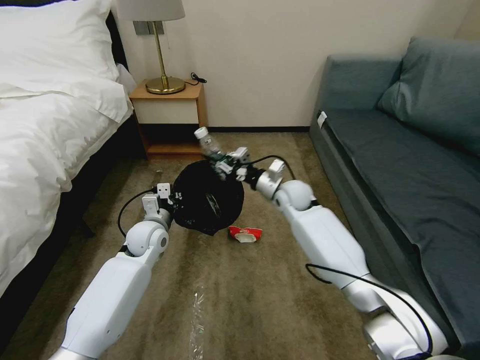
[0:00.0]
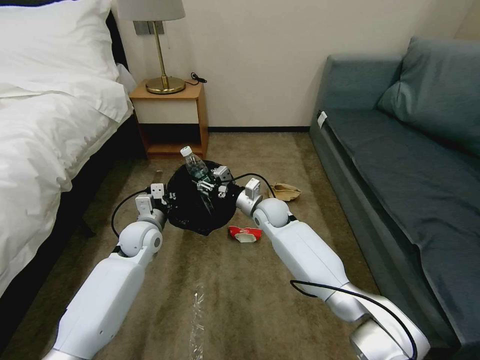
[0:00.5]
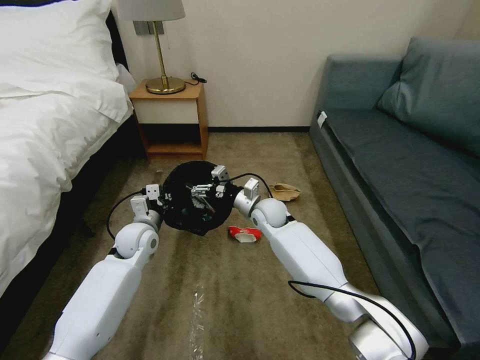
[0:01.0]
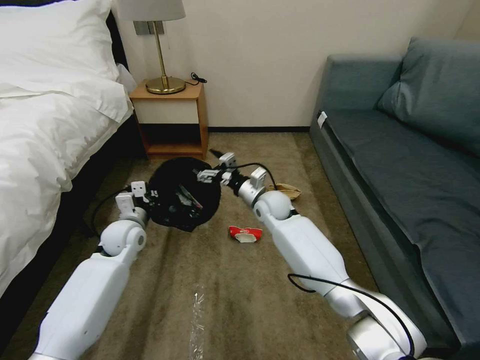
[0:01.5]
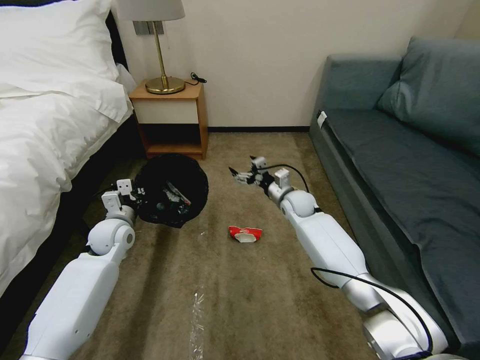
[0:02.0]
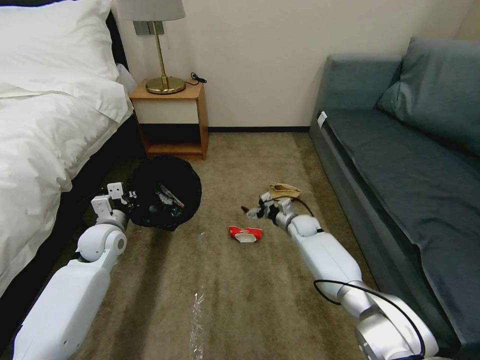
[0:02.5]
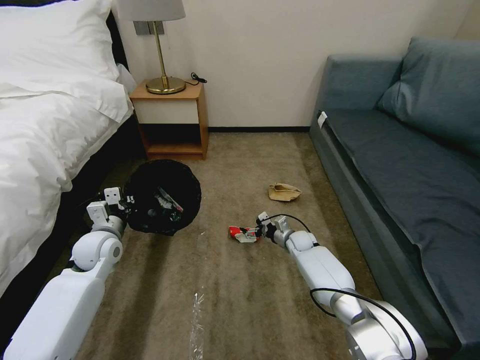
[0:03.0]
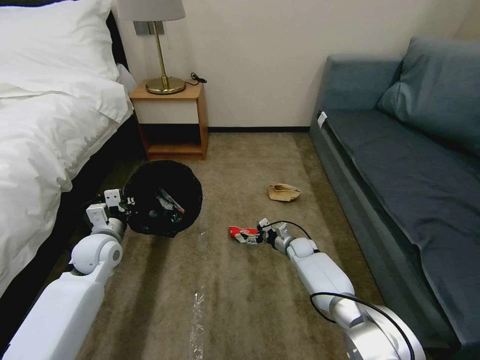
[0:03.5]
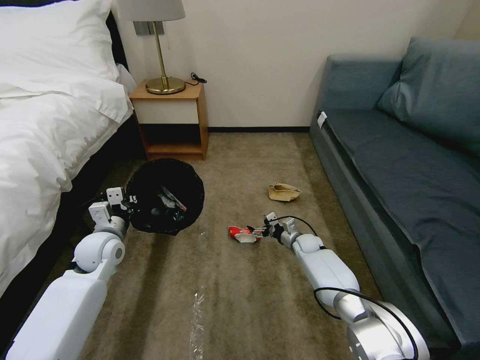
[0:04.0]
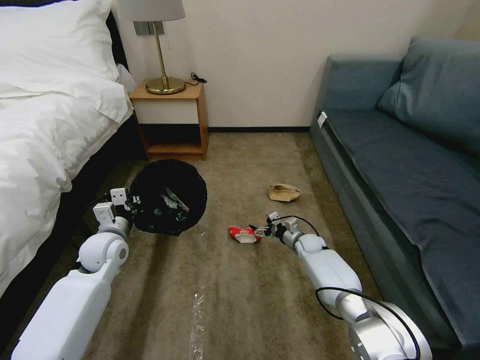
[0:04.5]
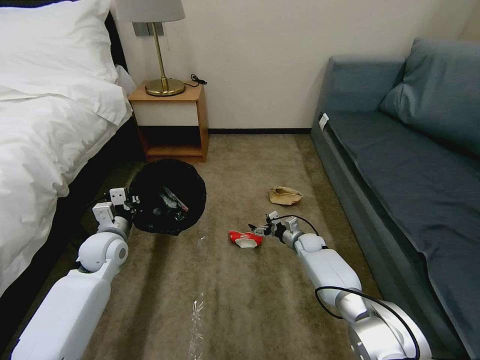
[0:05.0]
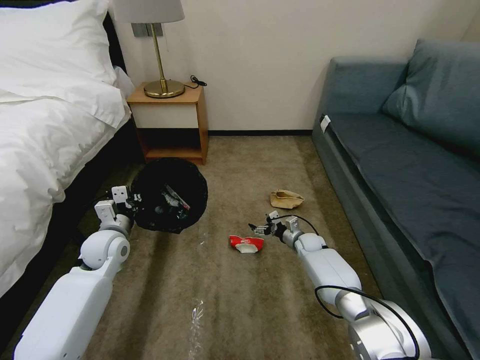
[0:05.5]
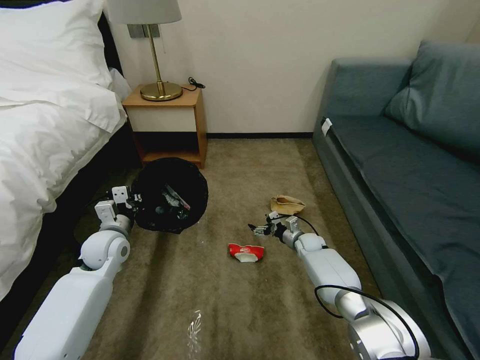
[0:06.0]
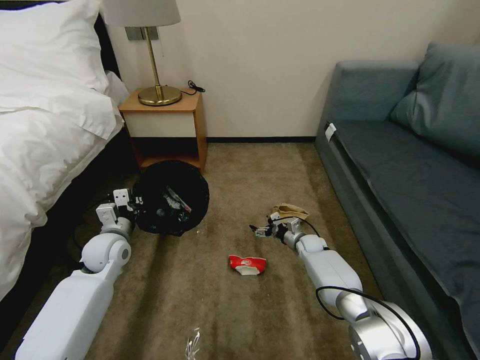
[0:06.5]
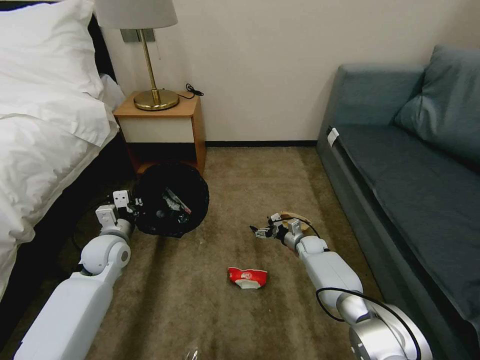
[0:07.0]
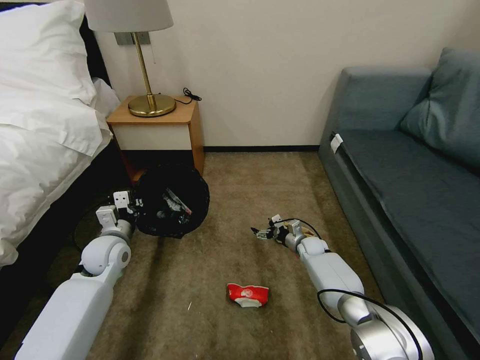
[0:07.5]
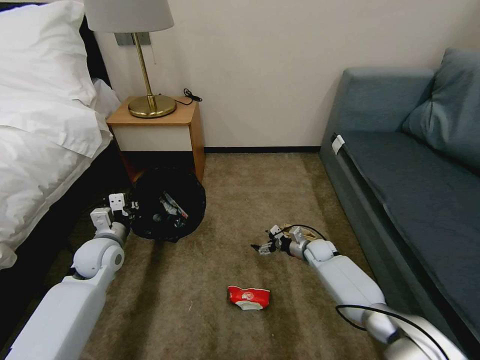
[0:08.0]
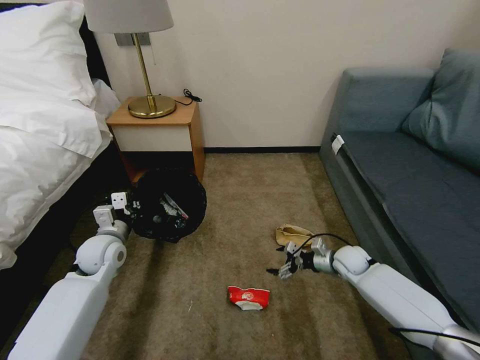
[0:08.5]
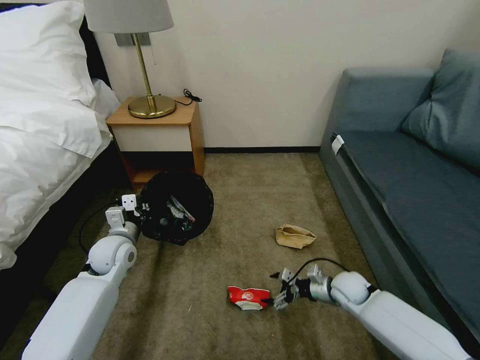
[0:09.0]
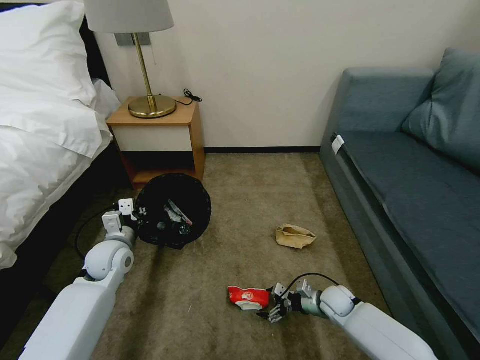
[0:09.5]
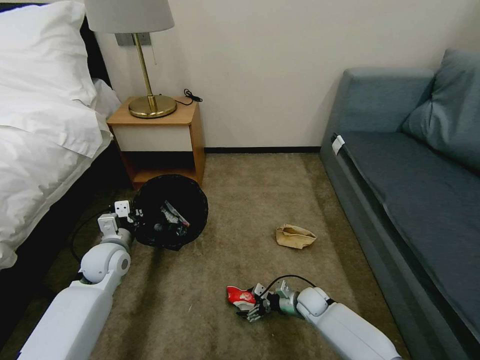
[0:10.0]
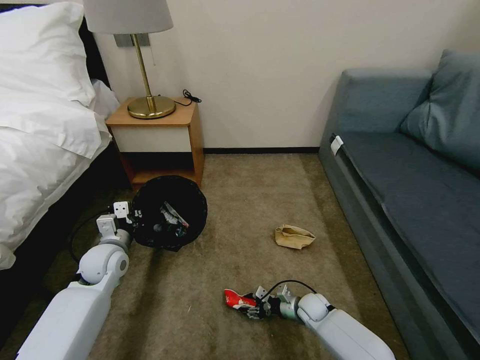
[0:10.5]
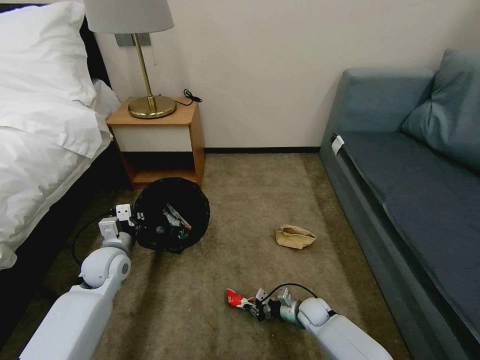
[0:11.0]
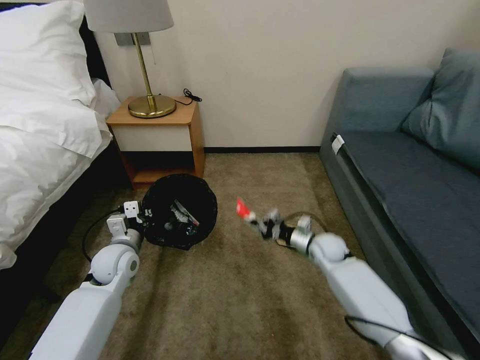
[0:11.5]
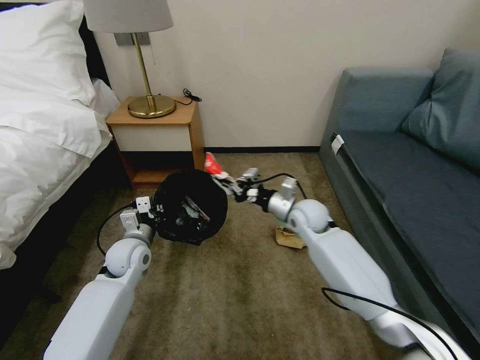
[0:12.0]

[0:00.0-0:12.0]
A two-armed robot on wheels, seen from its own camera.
Task of the whole recording: Pick up the trash bin, then pick up the garbage on the floor and place it into the trash bin.
0:00.0 to 0:02.0: The left gripper shifts some 10 cm to the left. Meanwhile the right gripper moves downward, about 5 cm, and opens.
0:02.0 to 0:04.0: The right gripper goes about 15 cm downward.
0:04.0 to 0:06.0: The grippers stay close to where they were, moving slightly.
0:08.0 to 0:10.0: The right gripper goes about 15 cm backward and downward.
0:10.0 to 0:12.0: The right gripper is displaced upward and forward by roughly 30 cm, and closes its fingers.

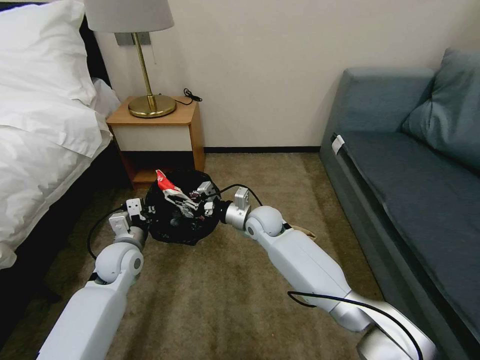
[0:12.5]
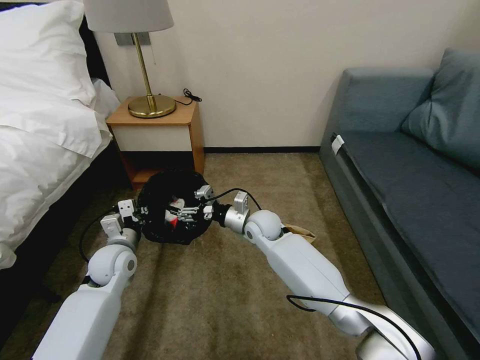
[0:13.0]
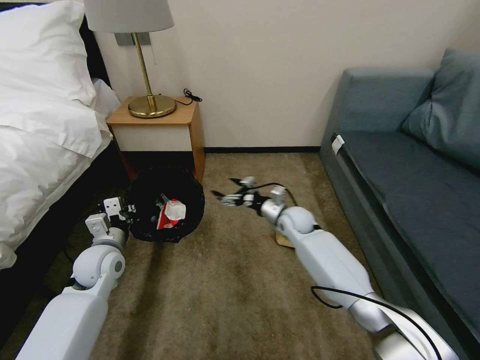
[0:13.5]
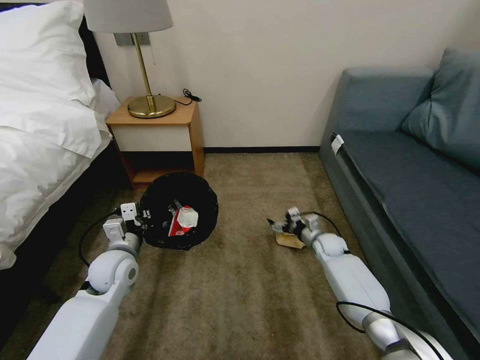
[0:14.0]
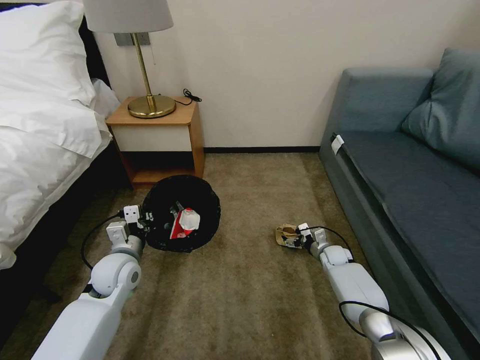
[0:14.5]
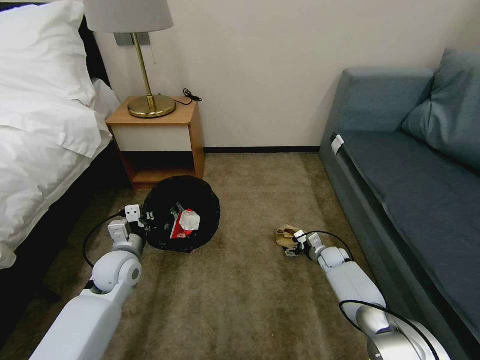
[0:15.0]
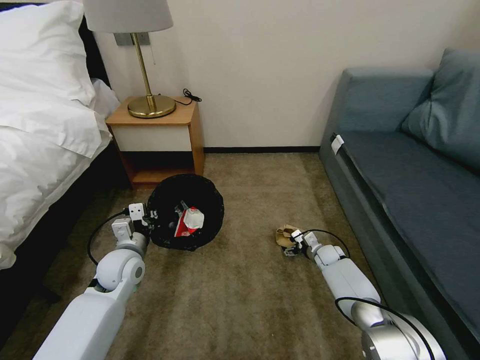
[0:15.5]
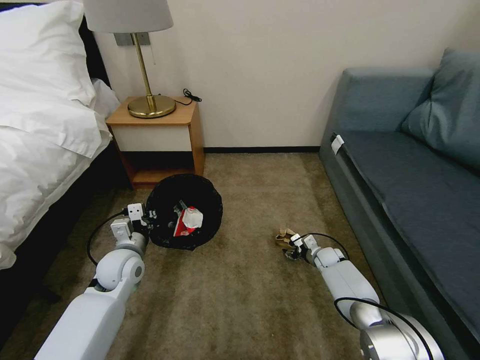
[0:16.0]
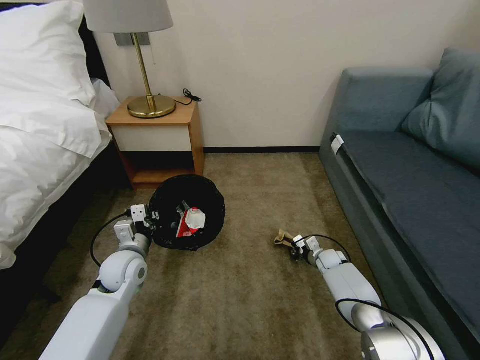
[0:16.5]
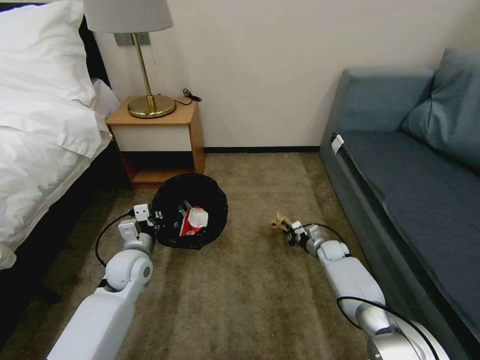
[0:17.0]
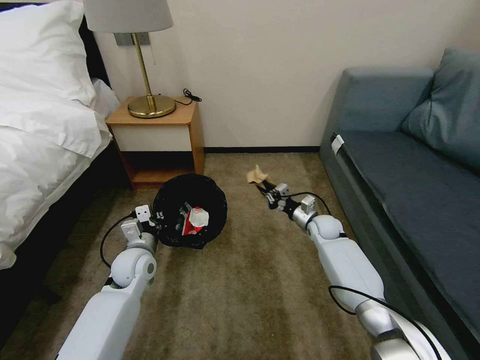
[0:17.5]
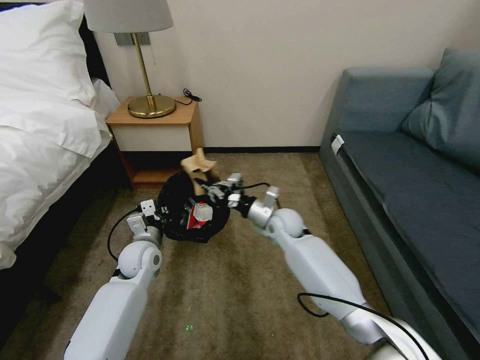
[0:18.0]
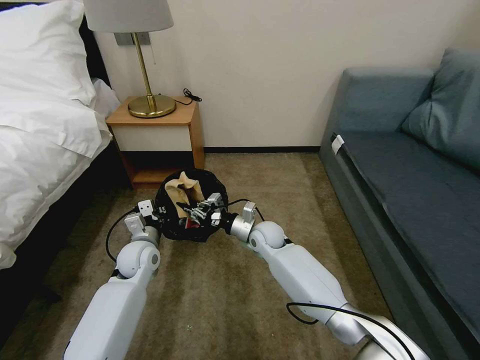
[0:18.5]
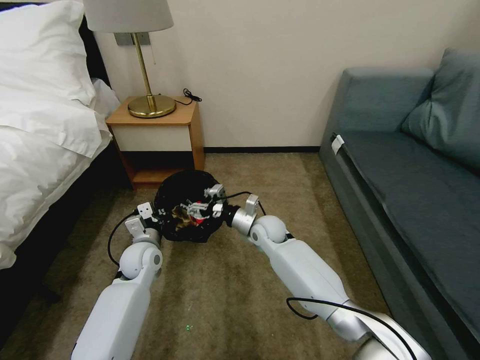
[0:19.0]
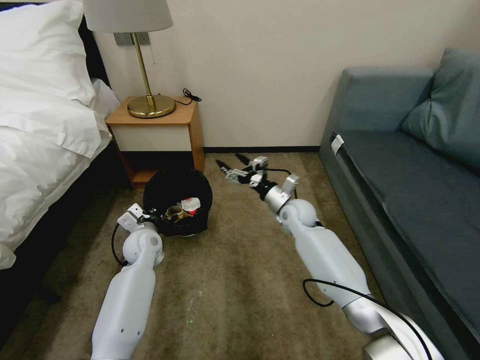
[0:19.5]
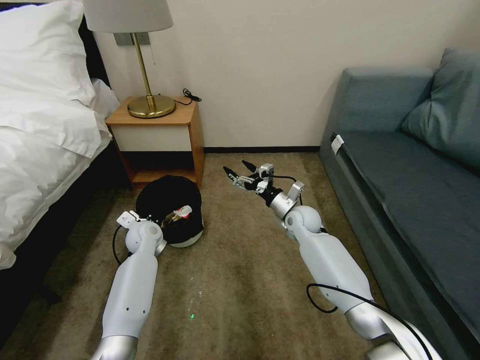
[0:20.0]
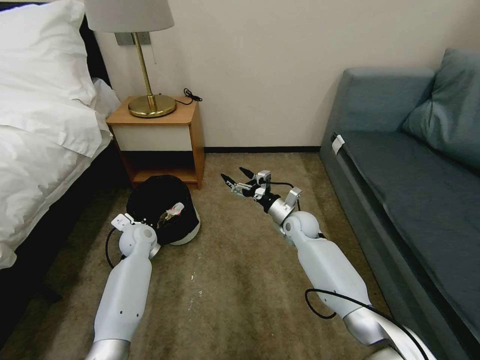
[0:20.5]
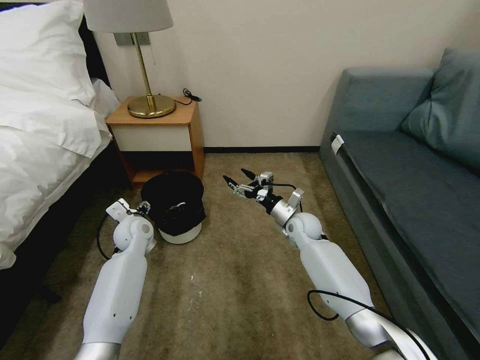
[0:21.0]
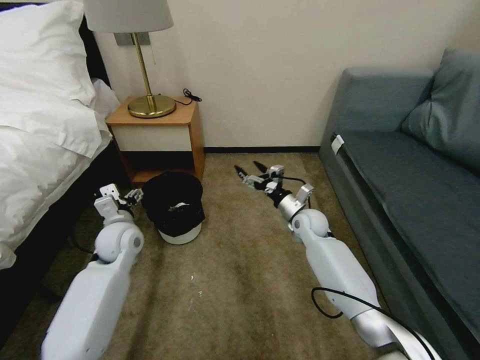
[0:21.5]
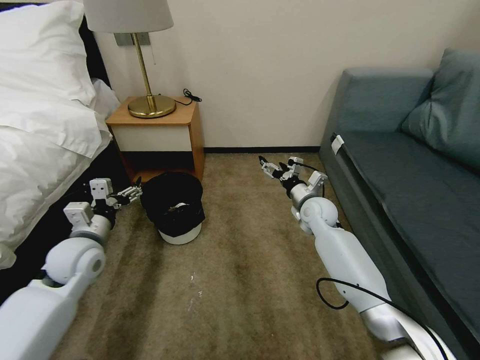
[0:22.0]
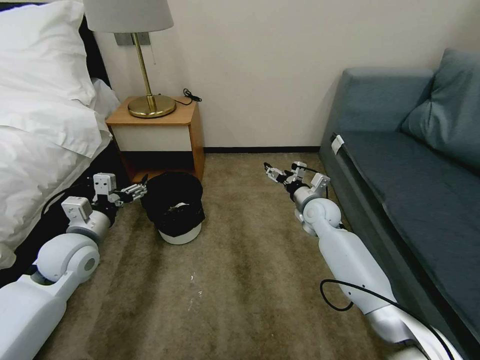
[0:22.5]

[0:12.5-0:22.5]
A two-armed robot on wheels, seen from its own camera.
Task of the whole recording: Pick up the trash bin, then pick up the garbage on the floor and place it into the trash bin.
0:12.5 to 0:14.5: The right gripper travels to the right and downward by about 35 cm, and opens its fingers.
0:14.5 to 0:16.5: The right gripper closes its fingers.
0:16.5 to 0:18.5: The right gripper travels to the left and upward by approximately 30 cm.
0:18.5 to 0:20.5: The left gripper heads forward, covering some 5 cm. The right gripper travels to the right by about 10 cm, and opens its fingers.
0:20.5 to 0:22.5: The right gripper is displaced upward by about 5 cm, while the left gripper heads upward, backward and to the left, covering some 20 cm, and opens.

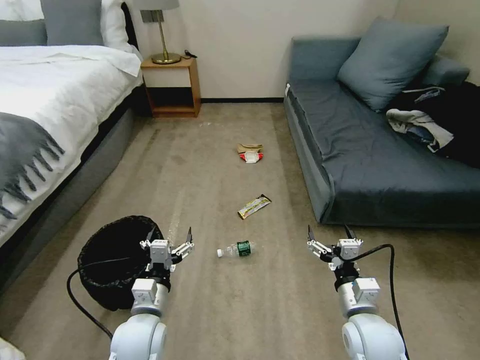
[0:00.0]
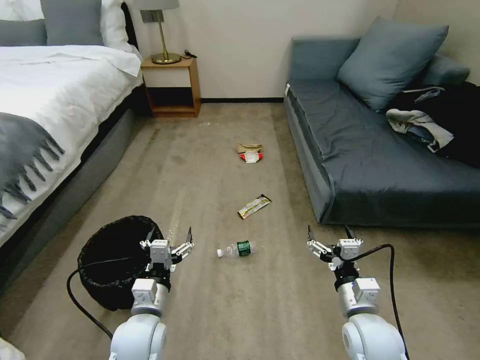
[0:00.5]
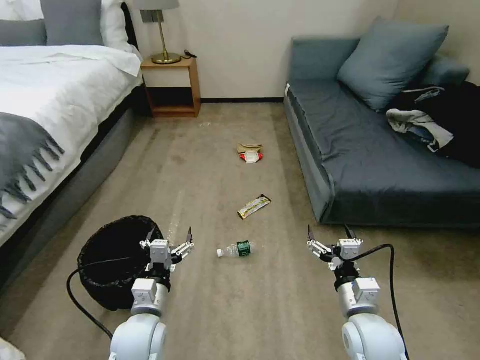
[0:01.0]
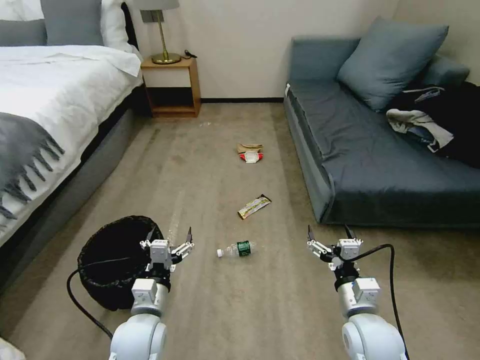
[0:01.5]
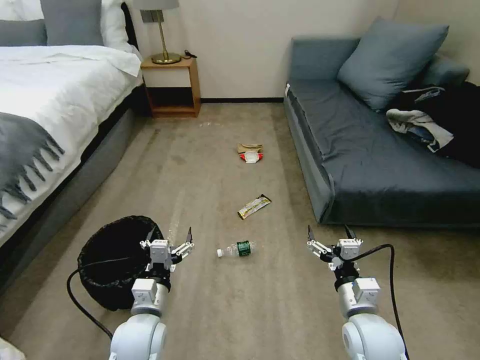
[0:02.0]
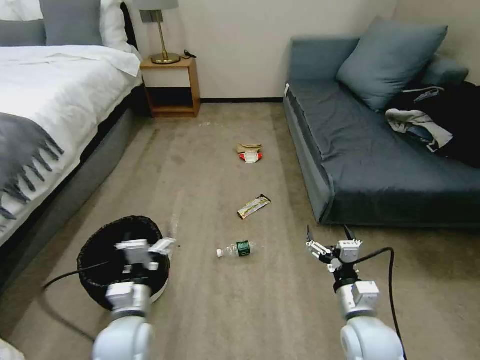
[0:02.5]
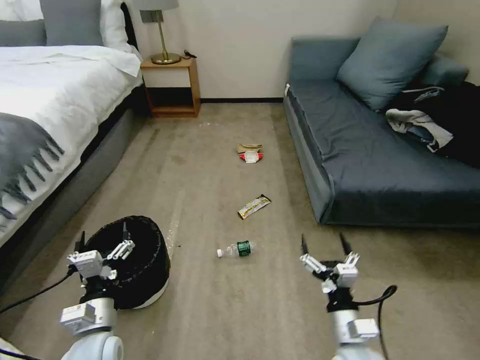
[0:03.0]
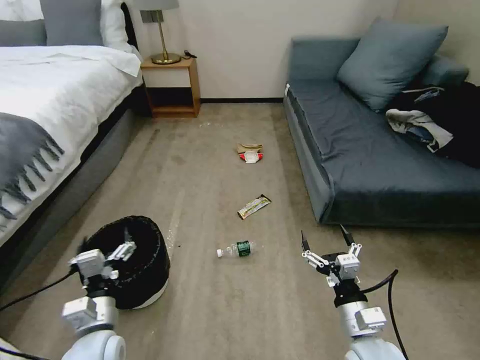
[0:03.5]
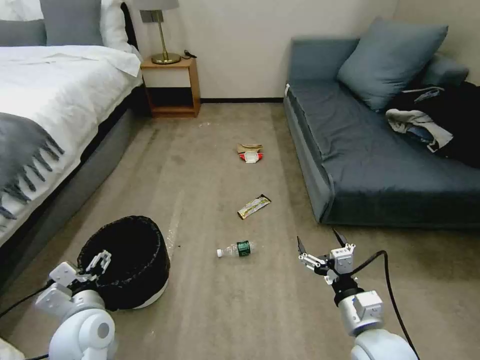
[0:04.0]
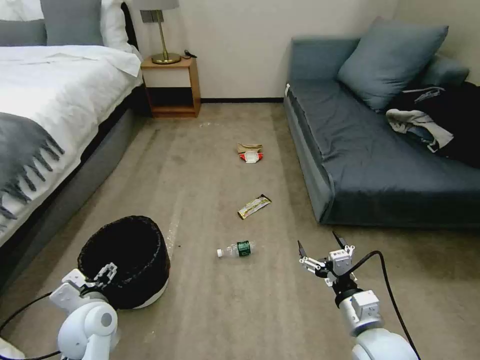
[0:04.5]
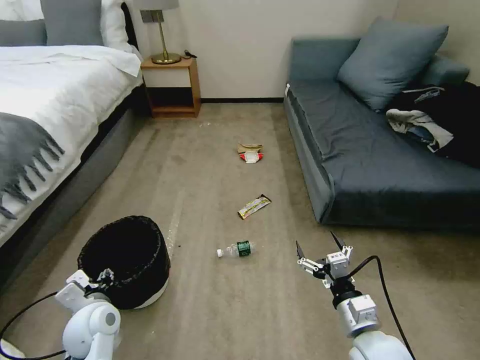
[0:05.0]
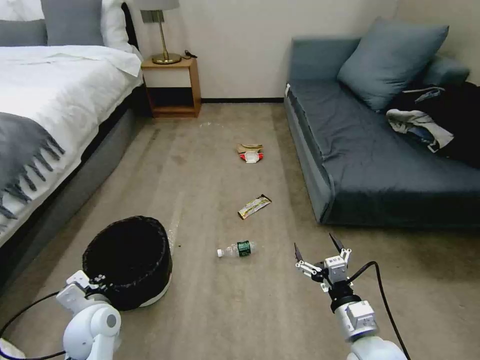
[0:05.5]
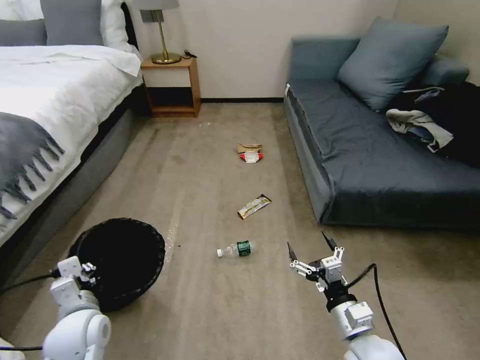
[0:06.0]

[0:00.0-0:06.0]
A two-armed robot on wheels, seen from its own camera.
Task of the whole recording: Pick up the trash bin, then pick up the garbage on the floor and place it into the trash bin.
0:02.0 to 0:04.0: The left gripper moves to the left and upward, roughly 10 cm.
0:04.0 to 0:06.0: The left gripper closes its fingers.
